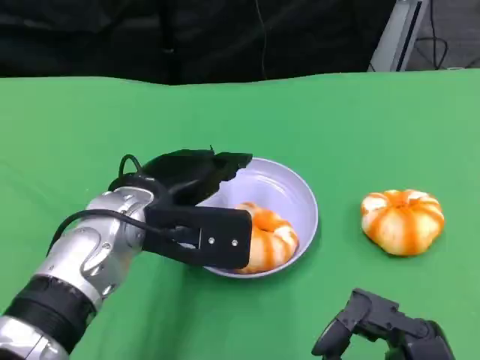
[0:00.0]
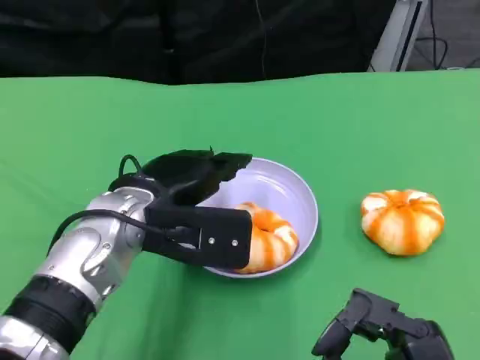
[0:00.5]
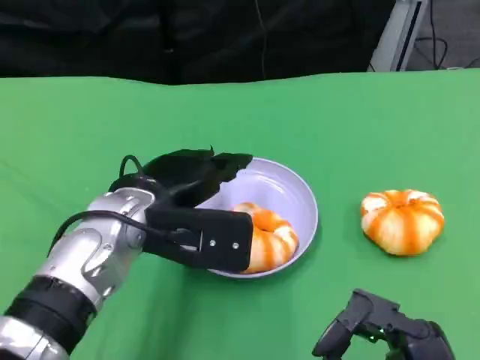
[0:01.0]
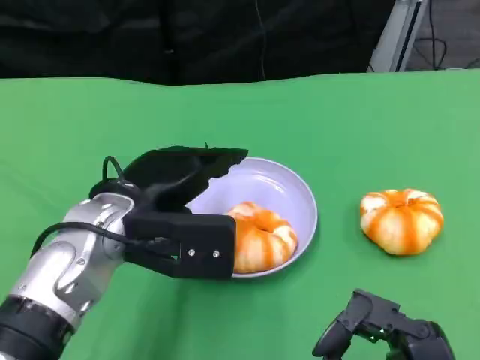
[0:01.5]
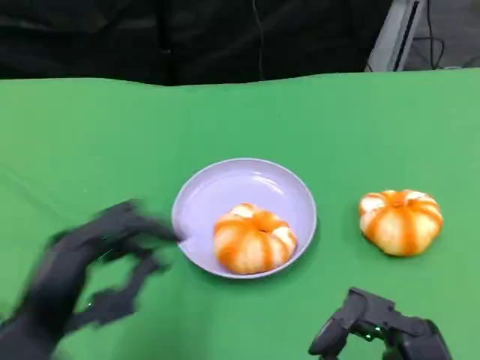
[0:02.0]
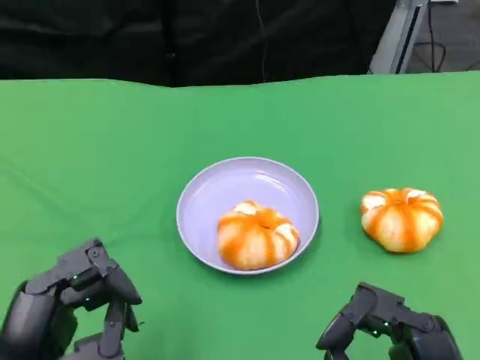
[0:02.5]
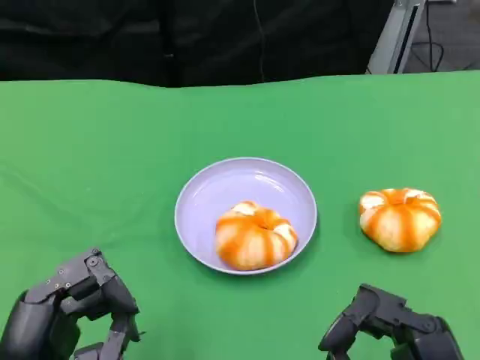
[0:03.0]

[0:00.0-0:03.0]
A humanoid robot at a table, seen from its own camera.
Task of the whole recording: Grasp the bread from the table and place it into the plate.
0:00.0 to 0:01.5: The hands move only a little.
0:01.5 to 0:03.0: The left hand heads backward and to the left, covering roughly 20 cm.
